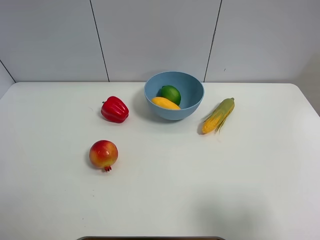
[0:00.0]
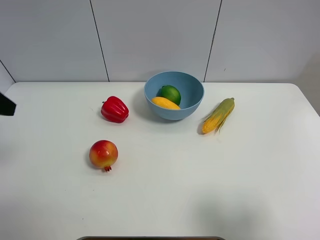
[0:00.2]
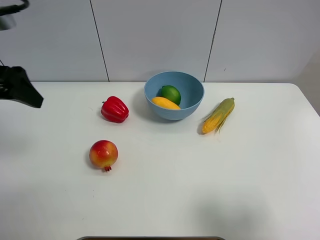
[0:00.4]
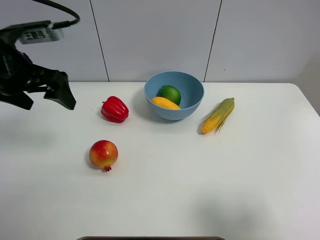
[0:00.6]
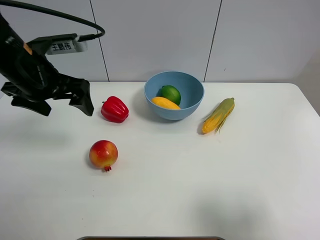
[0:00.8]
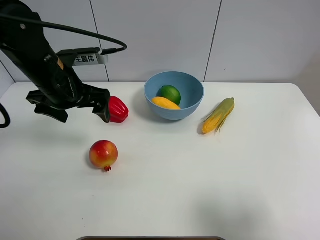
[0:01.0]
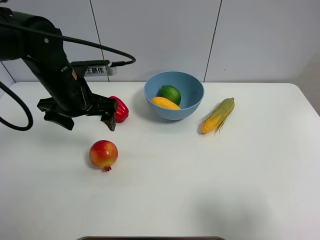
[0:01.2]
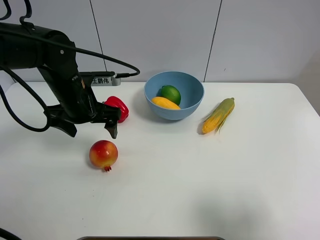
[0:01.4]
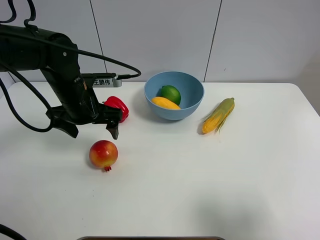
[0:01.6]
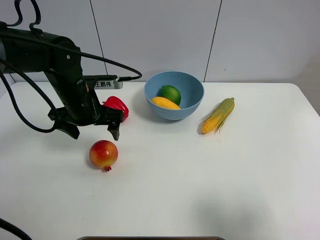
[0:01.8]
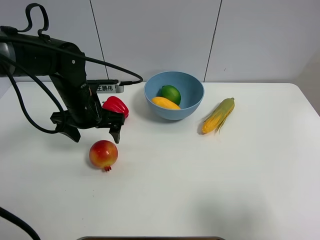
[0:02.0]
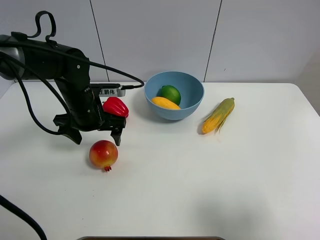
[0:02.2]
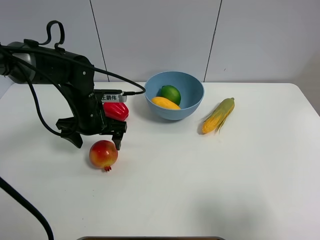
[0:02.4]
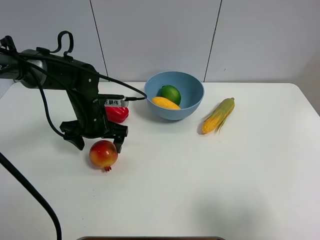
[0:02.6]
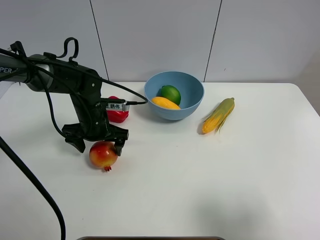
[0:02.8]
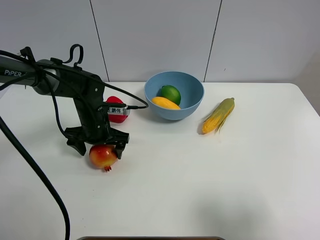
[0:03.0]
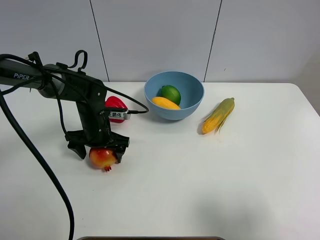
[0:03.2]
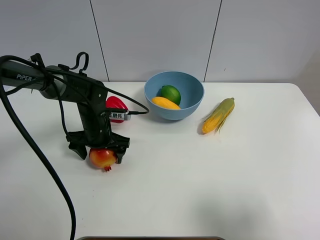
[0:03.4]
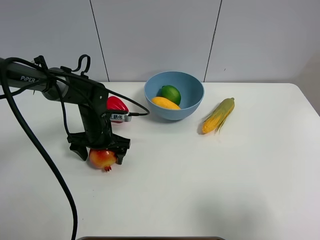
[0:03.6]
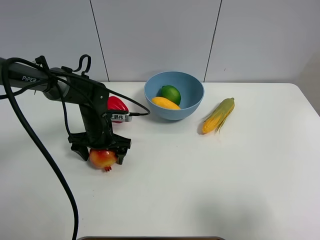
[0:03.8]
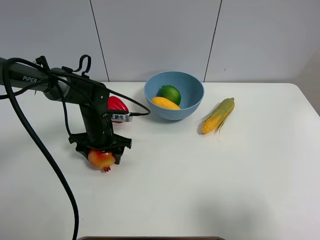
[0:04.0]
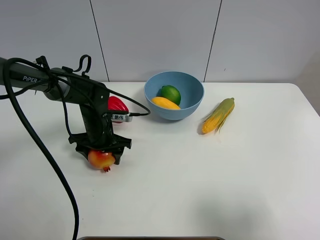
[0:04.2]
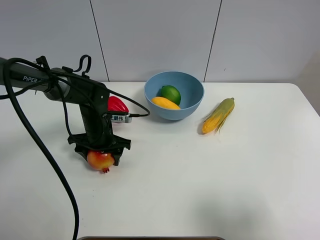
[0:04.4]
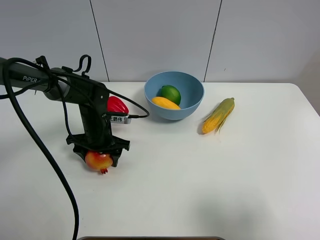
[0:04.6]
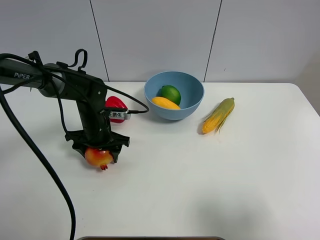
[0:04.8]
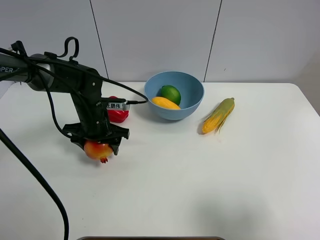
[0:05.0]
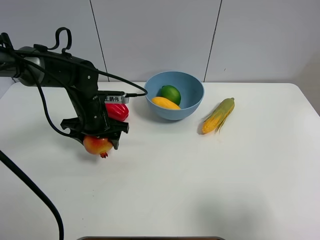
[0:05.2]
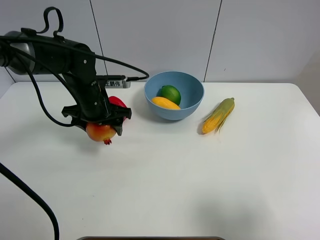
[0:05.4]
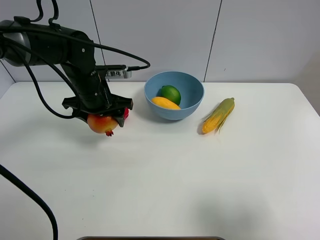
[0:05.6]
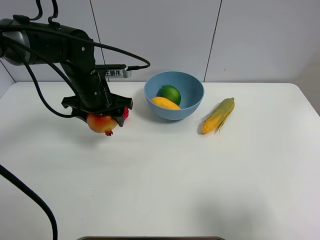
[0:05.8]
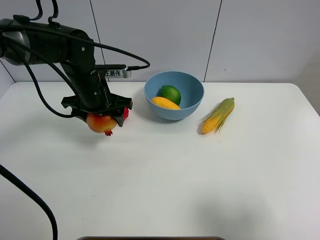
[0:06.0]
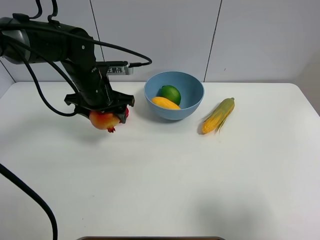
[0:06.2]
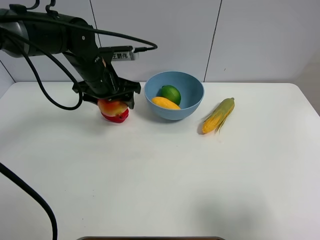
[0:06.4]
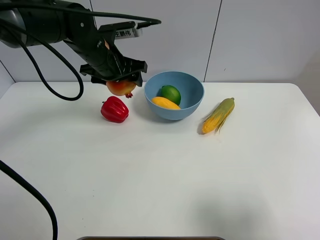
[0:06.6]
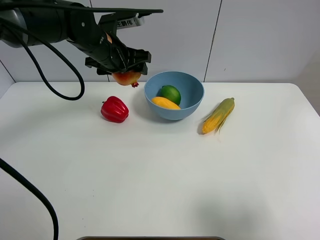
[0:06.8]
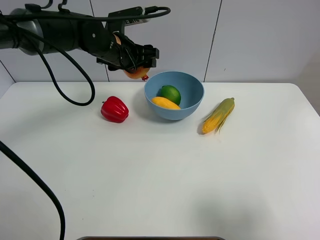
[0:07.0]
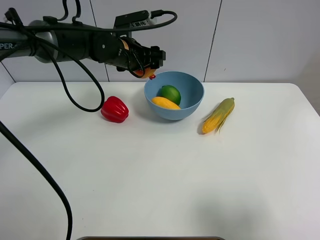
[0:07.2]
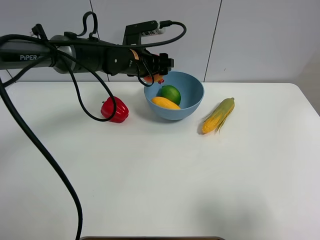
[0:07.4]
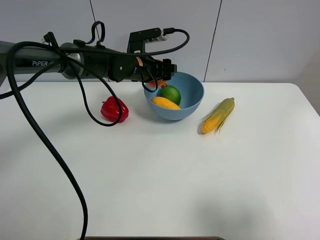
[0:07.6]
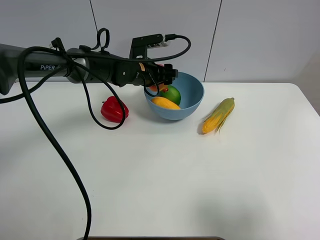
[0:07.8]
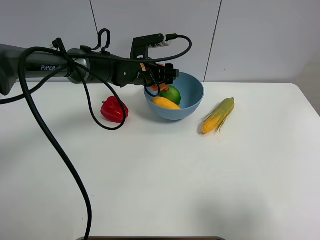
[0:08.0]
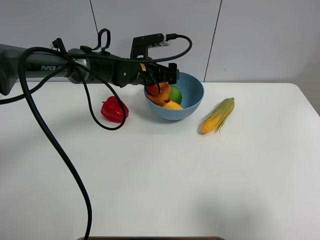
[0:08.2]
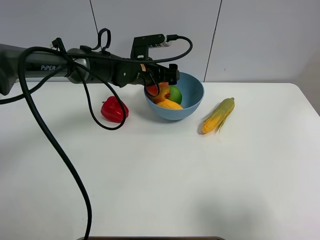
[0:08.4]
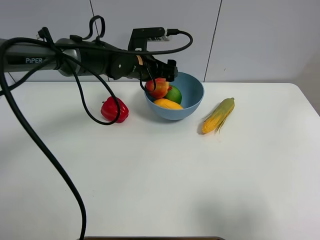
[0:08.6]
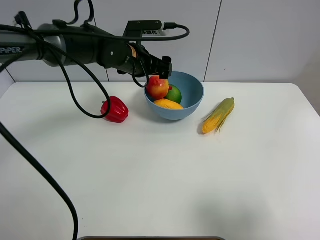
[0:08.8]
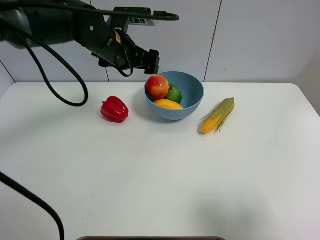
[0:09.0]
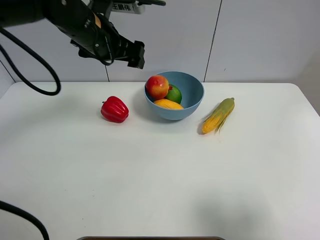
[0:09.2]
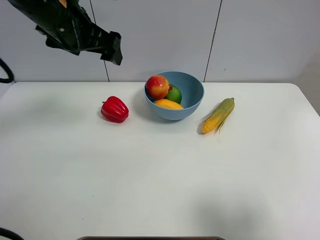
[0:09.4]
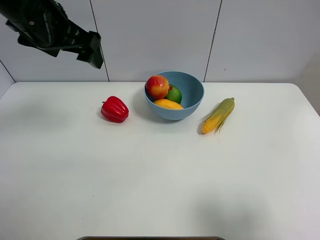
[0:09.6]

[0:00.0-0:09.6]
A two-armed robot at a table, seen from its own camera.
Task of the whole recording: Put the three fruits on the table into a bowl.
Step, 0:00.0 to 0:04.0: Grasp the pomegranate with left gripper.
Step, 0:04.2 to 0:08.6: Place the pomegranate in the blue bowl with left gripper.
0:00.0 to 0:01.6: The left gripper shifts about 30 cm forward, to the right and downward.
0:01.6 to 0:03.2: The left gripper is displaced downward by about 10 cm.
0:03.2 to 0:04.8: The left gripper closes up.
0:04.8 to 0:06.4: The left gripper goes approximately 10 cm upward.
0:06.4 to 0:08.0: The left gripper moves to the right, downward and forward, some 10 cm.
0:08.0 to 0:09.6: The left gripper is displaced upward, to the left and backward by approximately 25 cm, and opens its fingers.

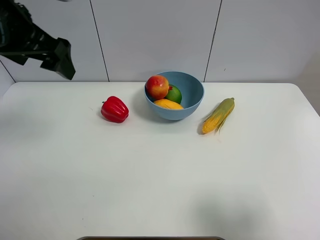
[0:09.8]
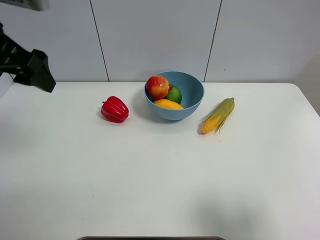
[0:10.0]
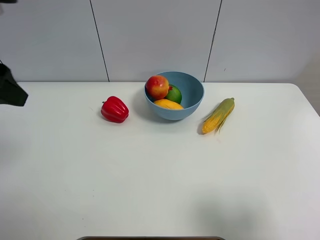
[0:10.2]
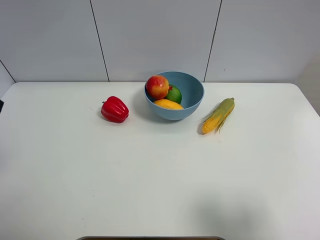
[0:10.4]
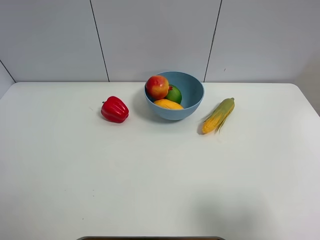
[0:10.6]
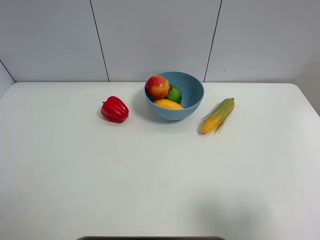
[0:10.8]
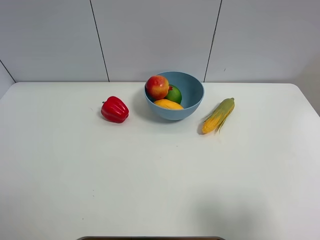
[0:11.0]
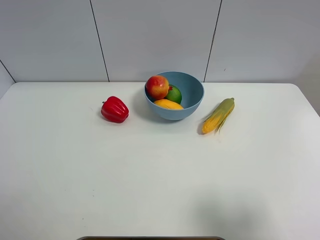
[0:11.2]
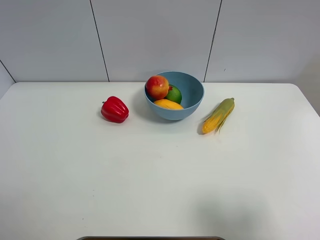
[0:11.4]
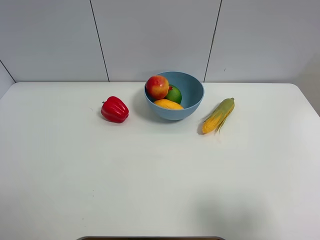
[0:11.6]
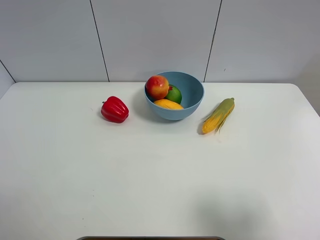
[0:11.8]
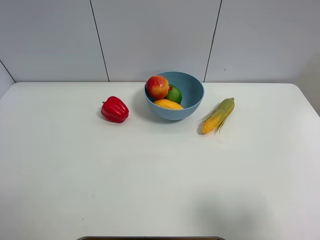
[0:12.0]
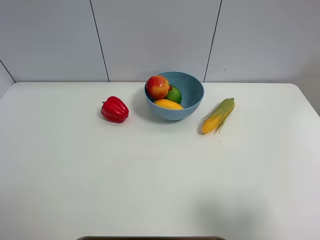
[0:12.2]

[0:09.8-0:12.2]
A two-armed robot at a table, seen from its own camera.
Task of the whole recording: Put the three fruits on the table into a bowl.
0:09.8 to 0:11.0: The left gripper shifts approximately 25 cm backward, to the left and downward.

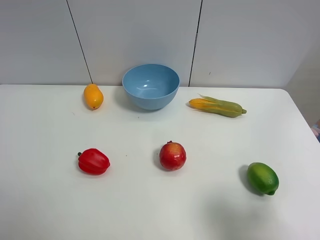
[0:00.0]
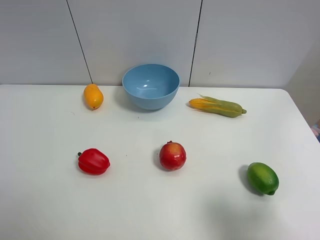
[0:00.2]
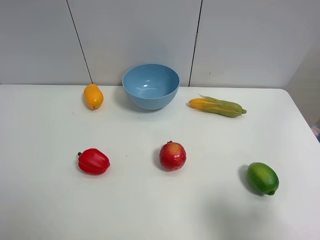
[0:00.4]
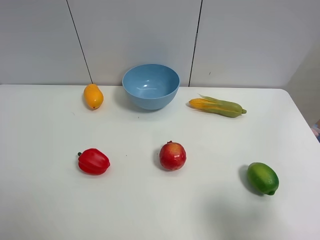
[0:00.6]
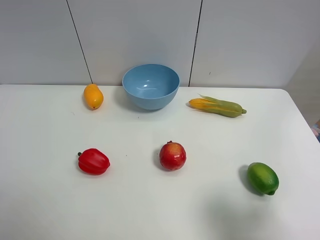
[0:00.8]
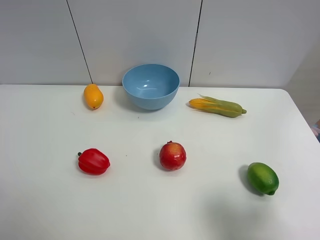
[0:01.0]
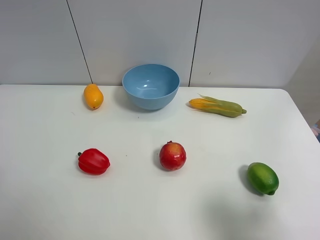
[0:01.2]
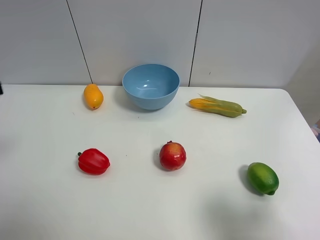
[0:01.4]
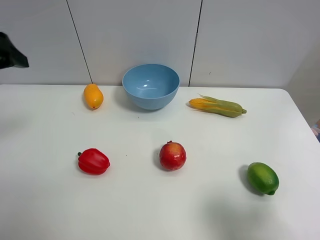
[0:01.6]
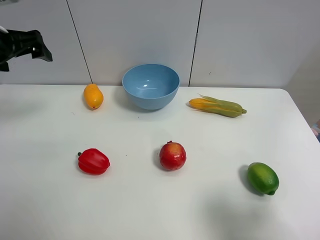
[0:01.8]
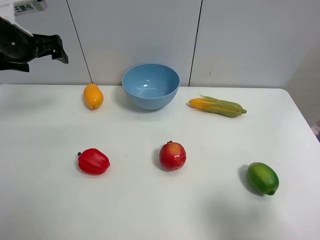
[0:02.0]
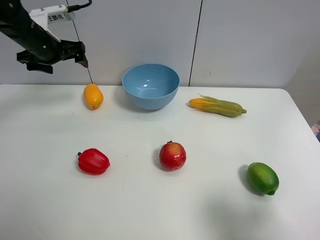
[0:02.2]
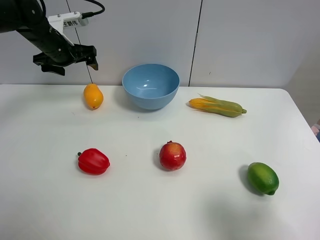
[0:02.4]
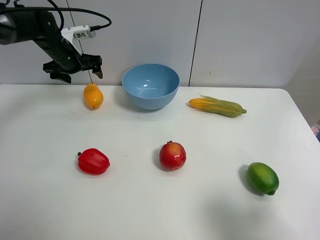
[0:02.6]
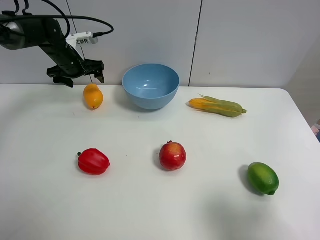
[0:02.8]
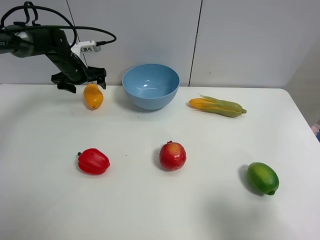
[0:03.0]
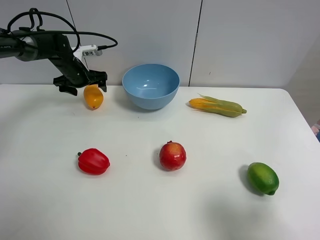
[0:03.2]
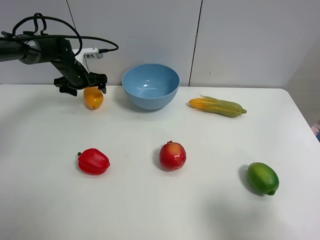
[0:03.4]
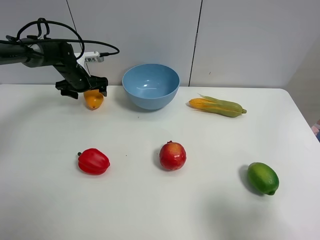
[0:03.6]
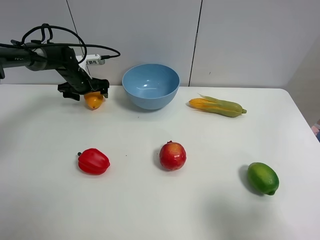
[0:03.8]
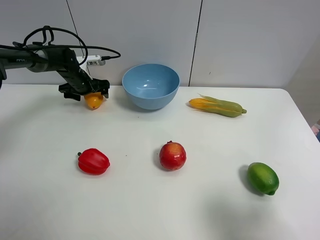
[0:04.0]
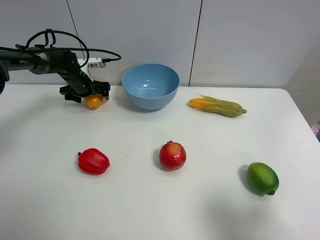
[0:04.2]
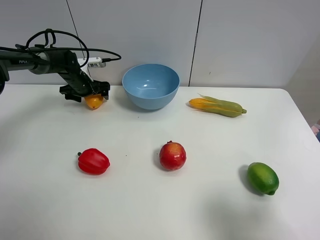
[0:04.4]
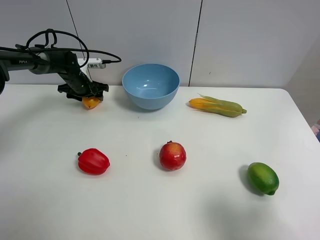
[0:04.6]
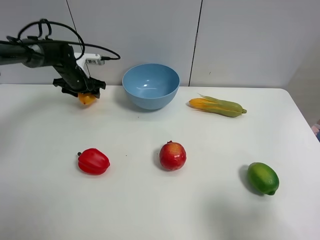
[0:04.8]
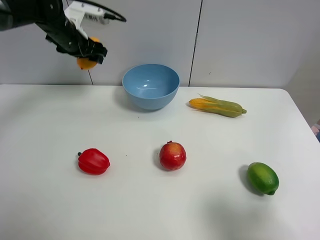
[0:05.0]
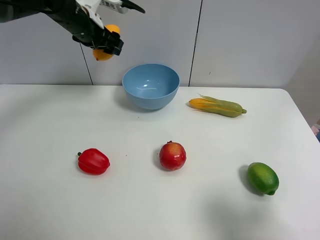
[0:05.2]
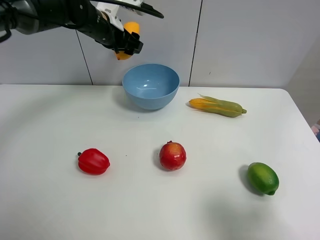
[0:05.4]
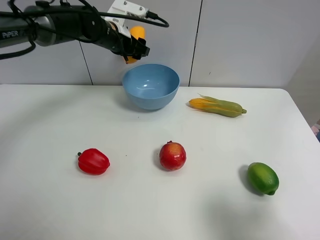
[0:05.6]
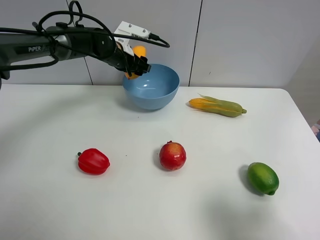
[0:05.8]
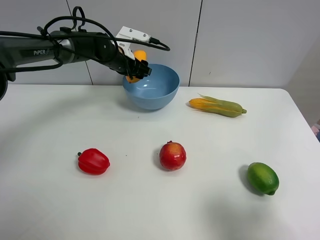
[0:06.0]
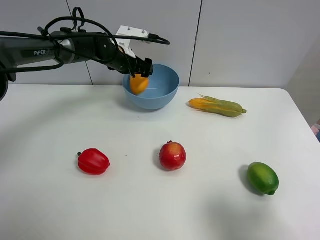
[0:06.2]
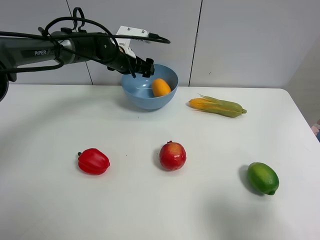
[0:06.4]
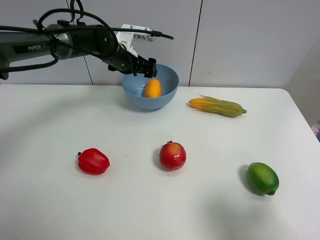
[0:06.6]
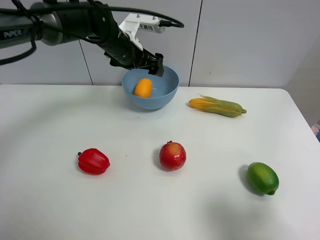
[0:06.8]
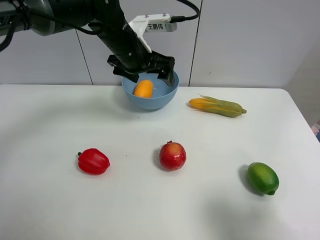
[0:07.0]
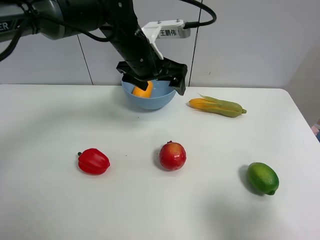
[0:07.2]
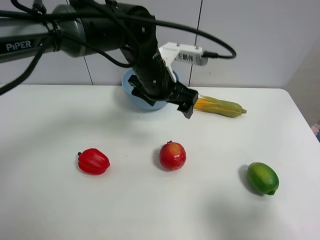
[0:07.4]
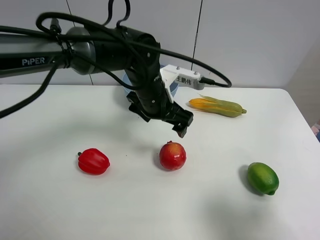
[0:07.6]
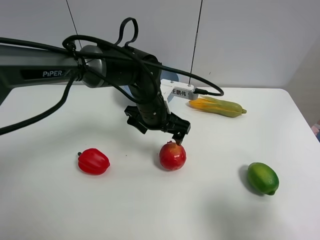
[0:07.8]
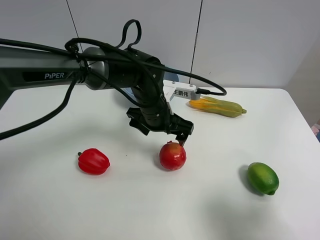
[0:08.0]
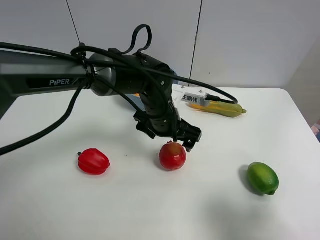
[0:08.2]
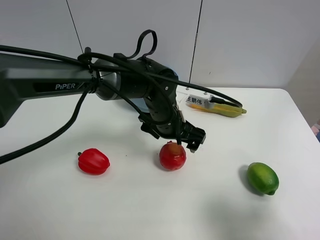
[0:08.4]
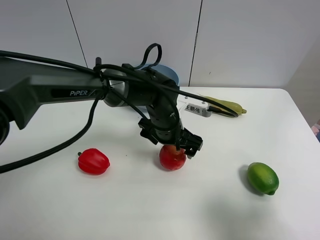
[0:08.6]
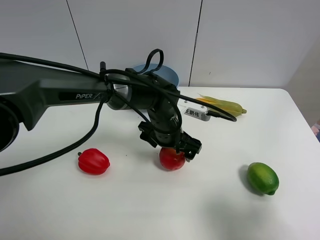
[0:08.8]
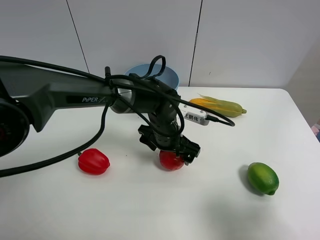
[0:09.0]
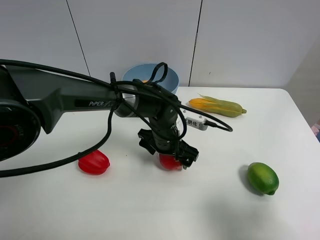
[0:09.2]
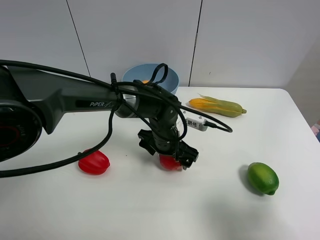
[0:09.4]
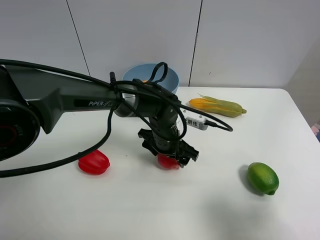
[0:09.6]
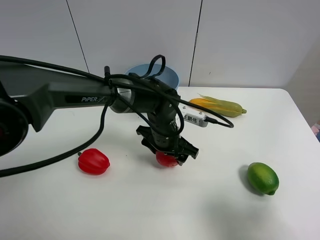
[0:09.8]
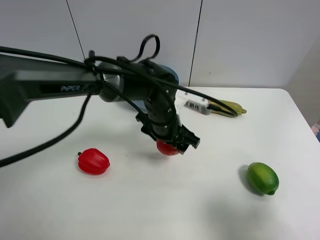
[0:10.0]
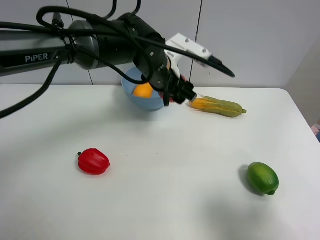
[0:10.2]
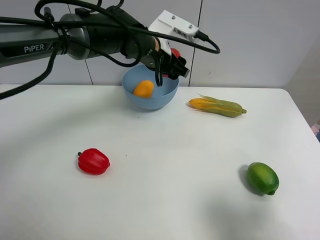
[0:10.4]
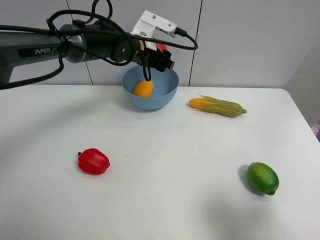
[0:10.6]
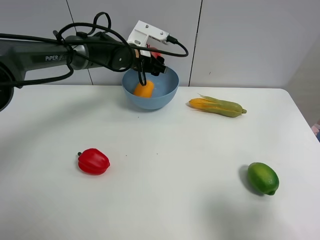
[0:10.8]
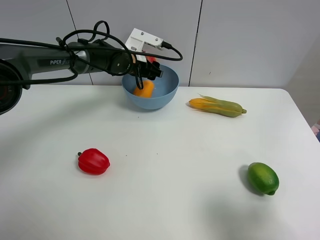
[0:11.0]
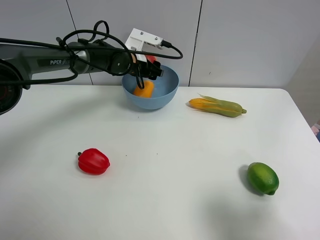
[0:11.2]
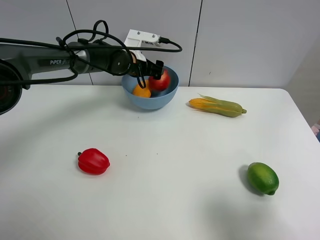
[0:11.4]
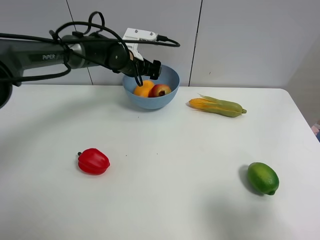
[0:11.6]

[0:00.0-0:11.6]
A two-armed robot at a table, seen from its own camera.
Task of the whole recording: Put the three fruits on the table into a bowl.
Step, 0:00.0 to 0:04.6: Grasp the mango with left gripper.
Step, 0:04.8 to 0:06.4: Place the mango in the blue bowl with left gripper.
Step, 0:06.6 to 0:09.6: Grasp the pomegranate with left gripper.
Step, 0:09.8 to 0:11.4: Place the pomegranate in the blue bowl with left gripper.
0:01.4 to 0:02.8: The left gripper moves forward and downward, some 35 cm.
0:02.8 to 0:04.4: The left gripper travels downward by roughly 10 cm, and closes up.
0:04.4 to 0:05.8: The left gripper is displaced to the right and upward by some 15 cm, and closes its fingers.
0:05.8 to 0:07.2: The left gripper moves backward, to the right and upward, approximately 20 cm, and opens up.
0:07.2 to 0:08.8: The left gripper shifts some 15 cm downward.
0:08.8 to 0:10.2: The left gripper is displaced upward and forward by approximately 15 cm, and closes.
0:10.2 to 0:11.6: The left gripper heads forward and to the left, covering some 15 cm, and opens up.
